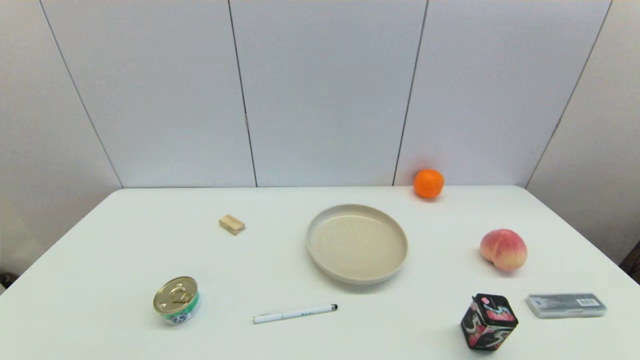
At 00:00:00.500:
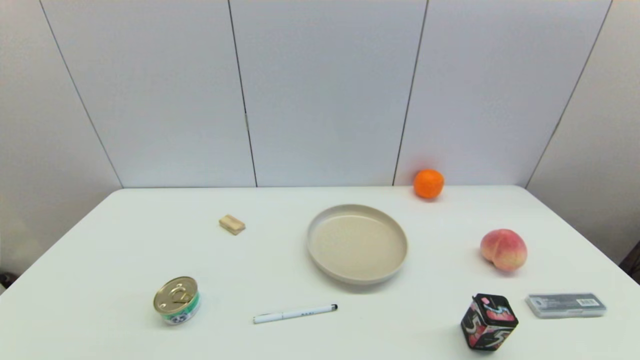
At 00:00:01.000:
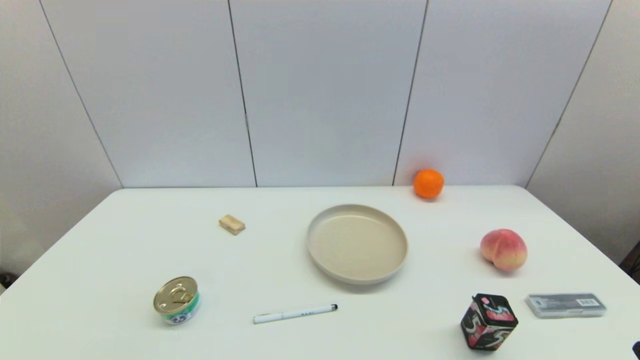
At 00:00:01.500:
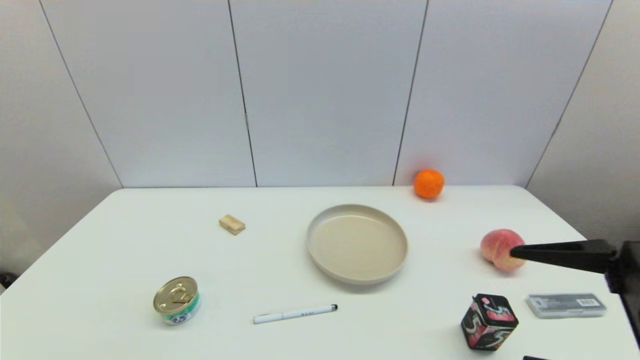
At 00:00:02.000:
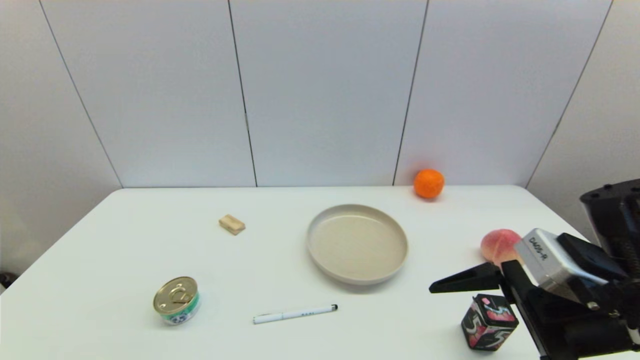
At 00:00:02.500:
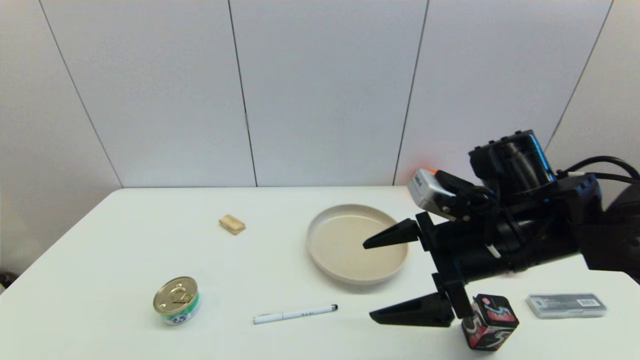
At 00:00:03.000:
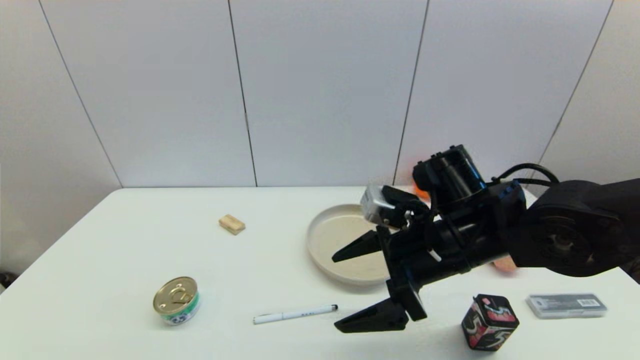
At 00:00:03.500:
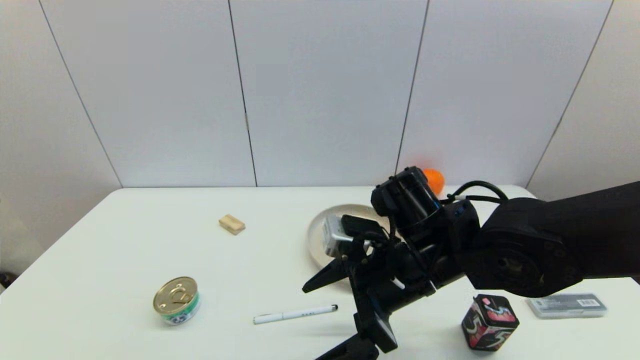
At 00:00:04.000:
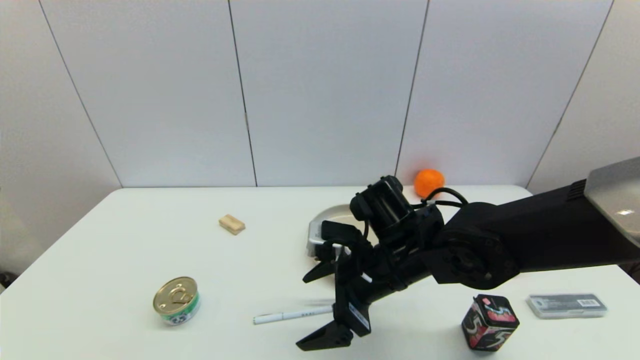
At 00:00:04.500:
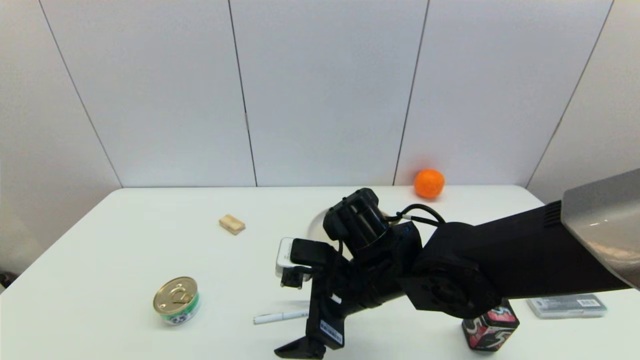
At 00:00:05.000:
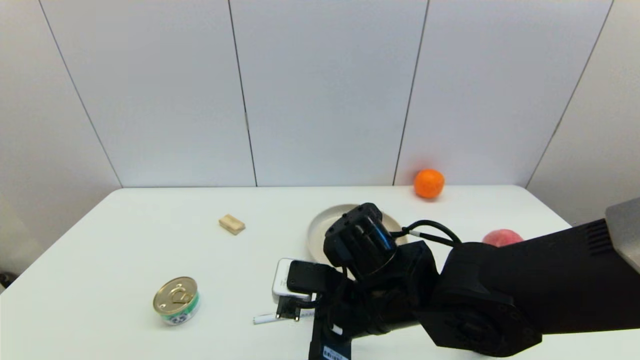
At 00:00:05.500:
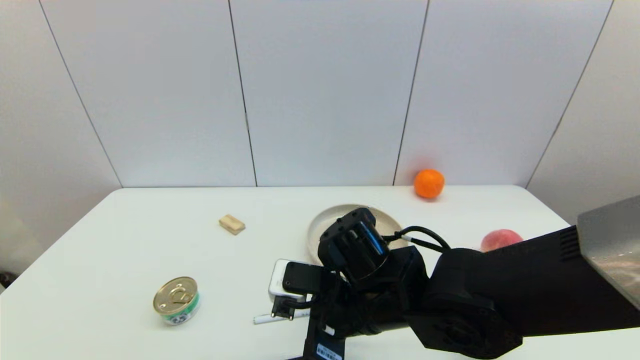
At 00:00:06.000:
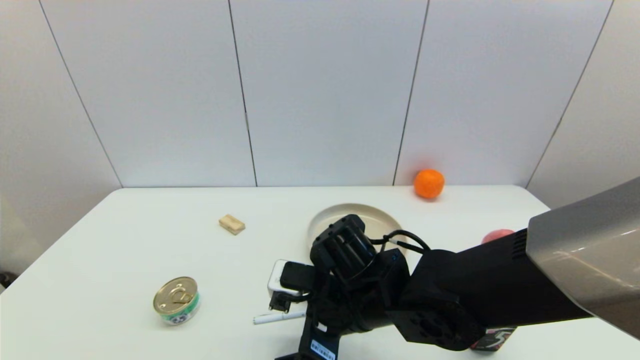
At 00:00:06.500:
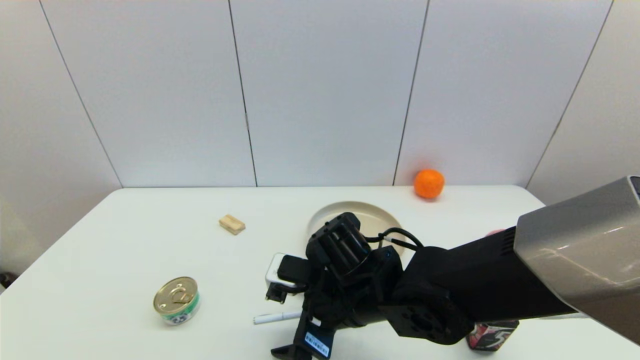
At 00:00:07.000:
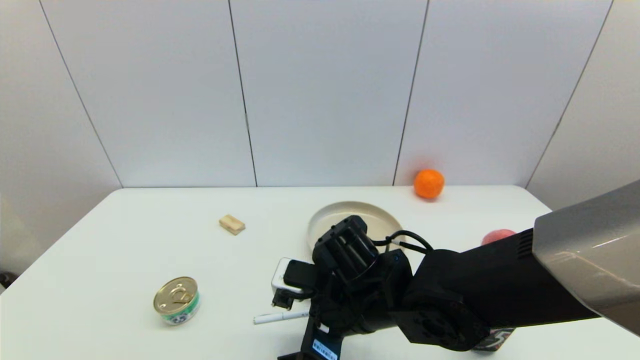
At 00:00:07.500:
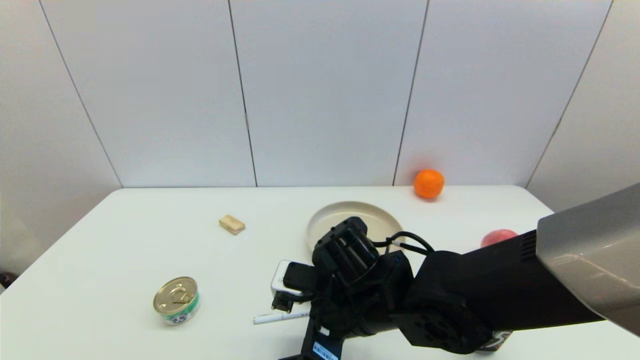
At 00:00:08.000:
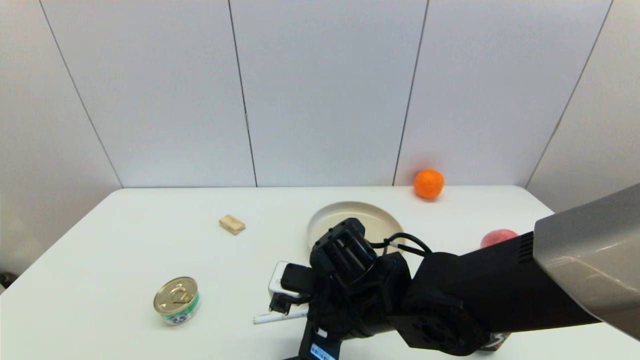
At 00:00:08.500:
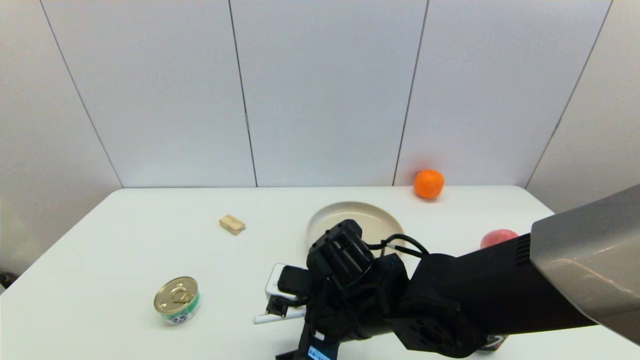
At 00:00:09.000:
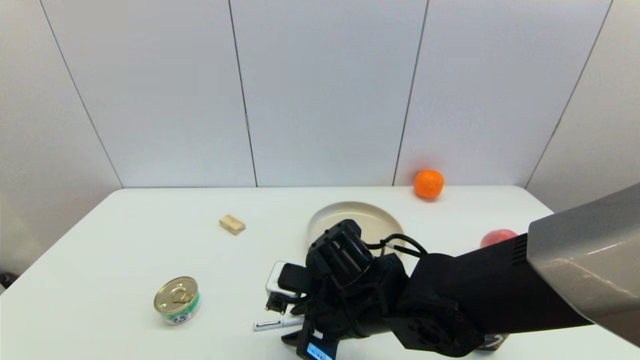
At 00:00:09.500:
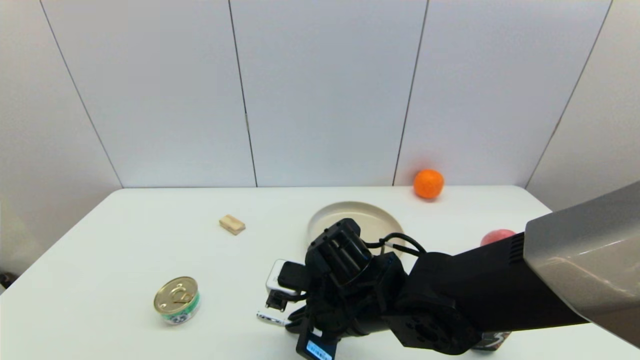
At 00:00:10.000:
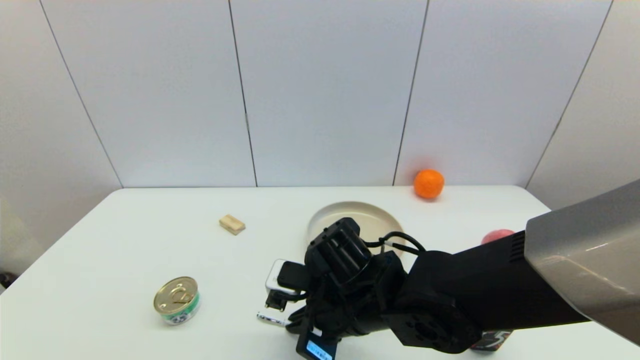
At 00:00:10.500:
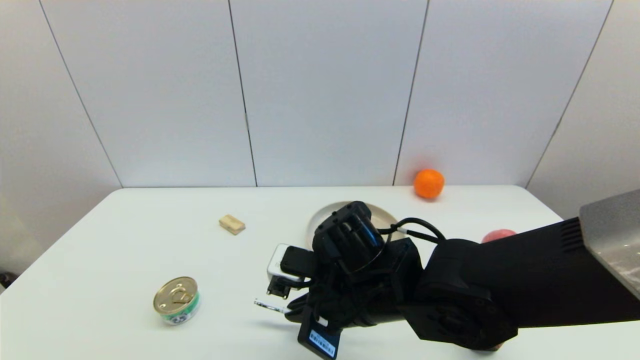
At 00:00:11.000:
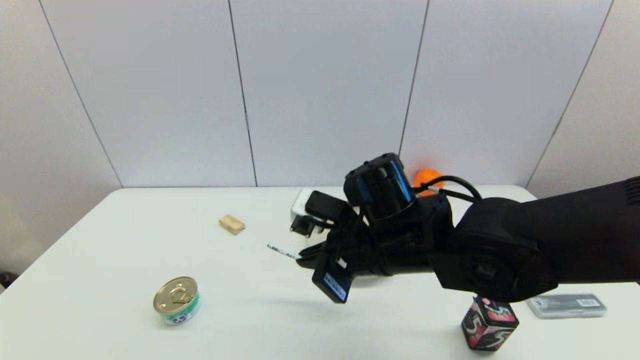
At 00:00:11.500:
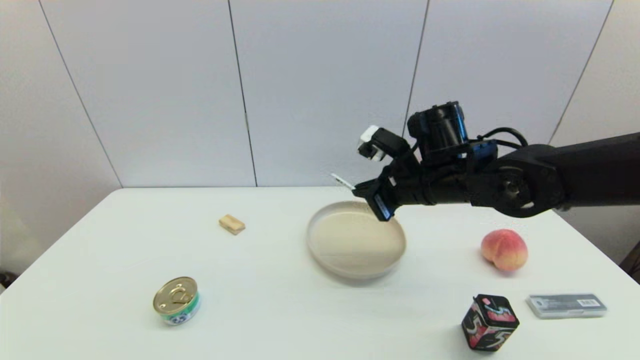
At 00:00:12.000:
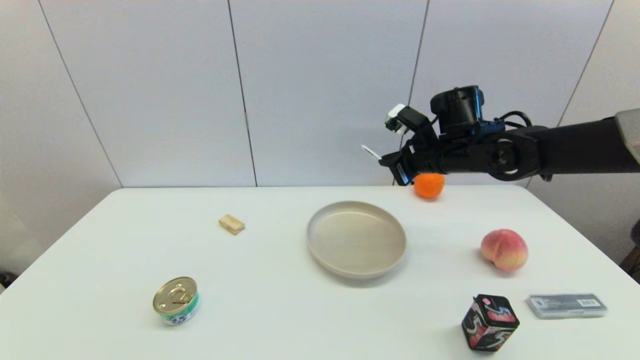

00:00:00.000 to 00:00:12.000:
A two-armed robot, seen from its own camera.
Task of the whole recording: put the pen in the designated position.
Step, 00:00:01.000 to 00:00:09.500: Grasp the sign pen with right gripper.
00:00:00.000 to 00:00:02.000: The right gripper goes approximately 25 cm forward, to the left and upward.
00:00:02.000 to 00:00:04.000: The right gripper goes roughly 20 cm to the left and forward.
00:00:04.000 to 00:00:06.000: The right gripper shifts by about 5 cm.
00:00:06.000 to 00:00:08.000: The grippers make only small movements.
00:00:08.000 to 00:00:10.000: The right gripper closes up.
00:00:10.000 to 00:00:12.000: The right gripper travels forward, to the right and upward by about 25 cm.

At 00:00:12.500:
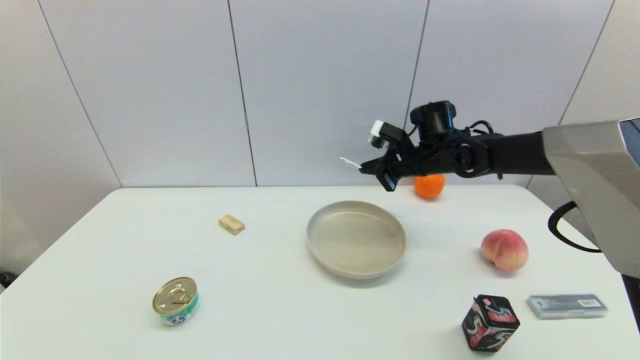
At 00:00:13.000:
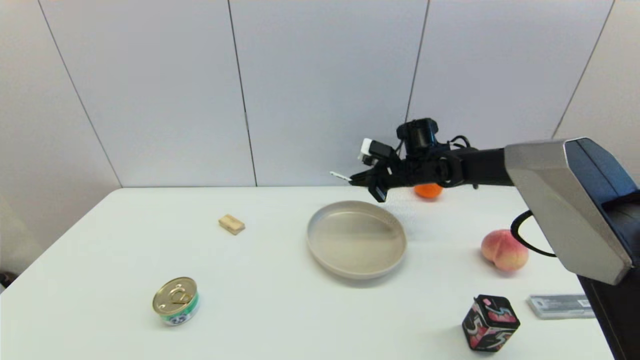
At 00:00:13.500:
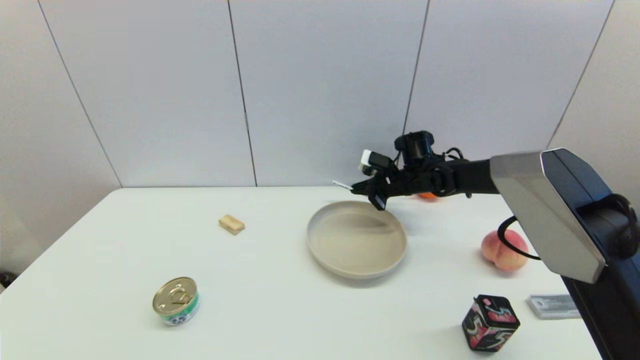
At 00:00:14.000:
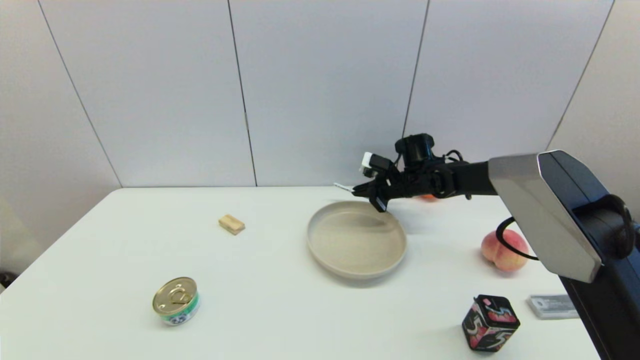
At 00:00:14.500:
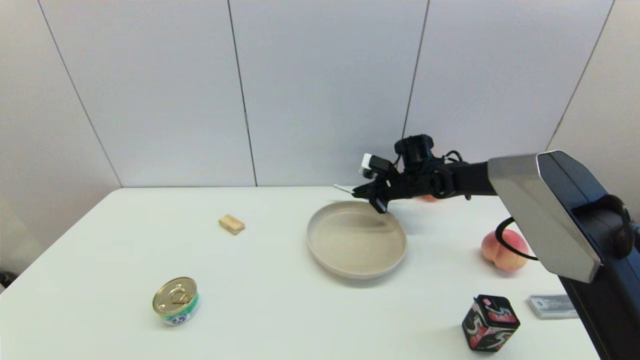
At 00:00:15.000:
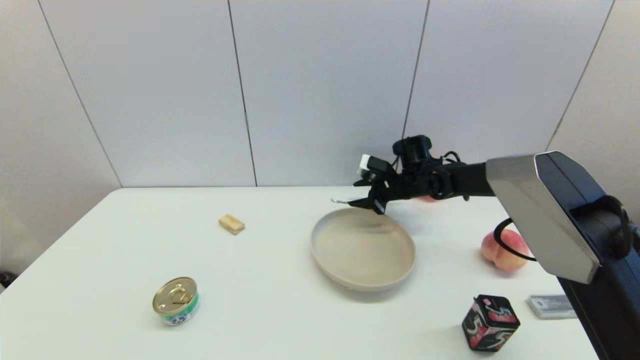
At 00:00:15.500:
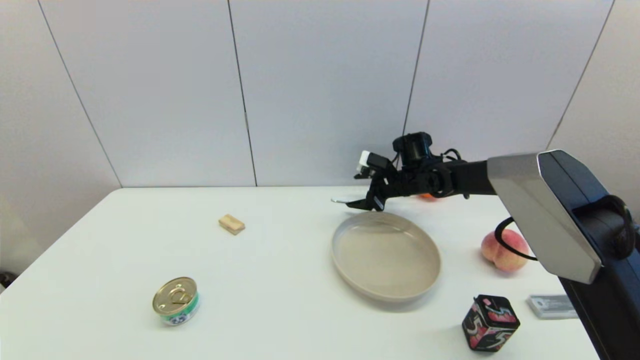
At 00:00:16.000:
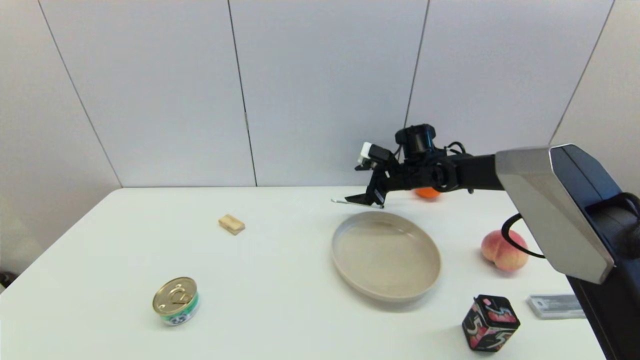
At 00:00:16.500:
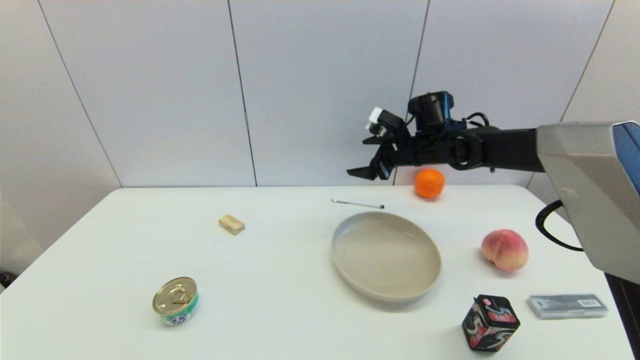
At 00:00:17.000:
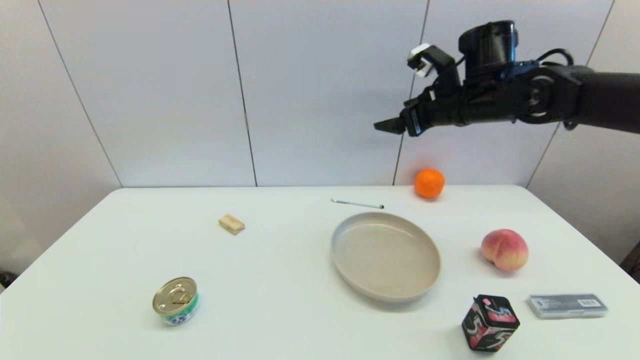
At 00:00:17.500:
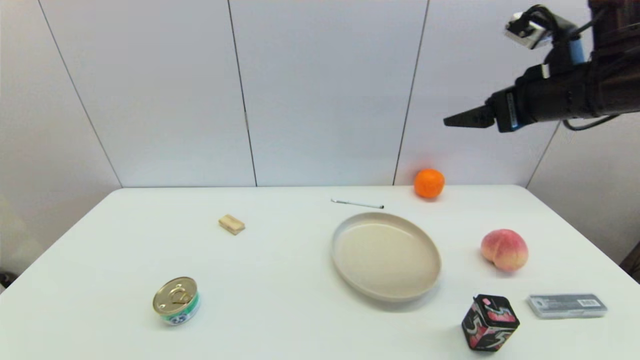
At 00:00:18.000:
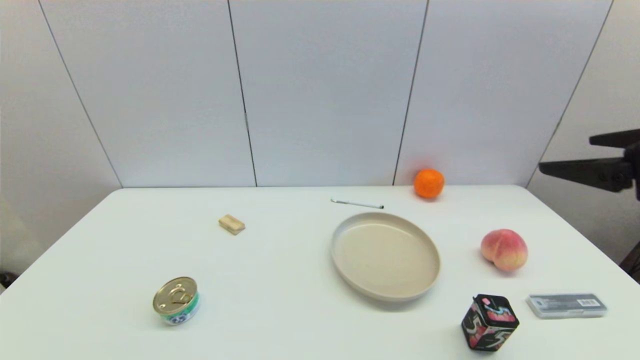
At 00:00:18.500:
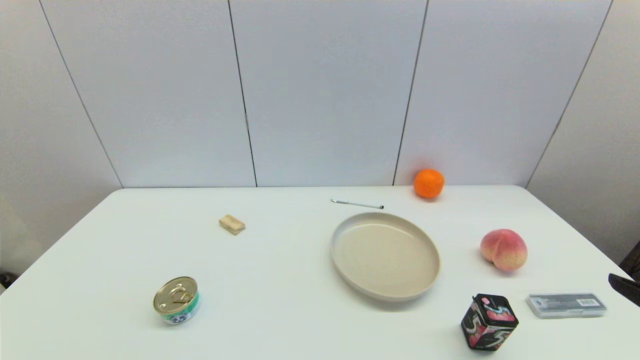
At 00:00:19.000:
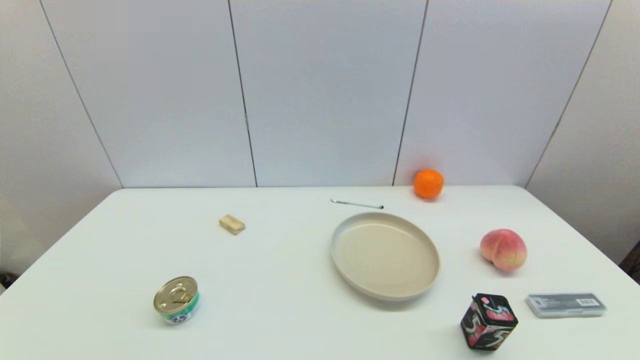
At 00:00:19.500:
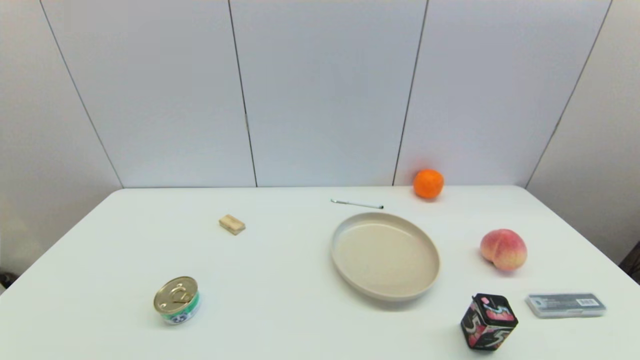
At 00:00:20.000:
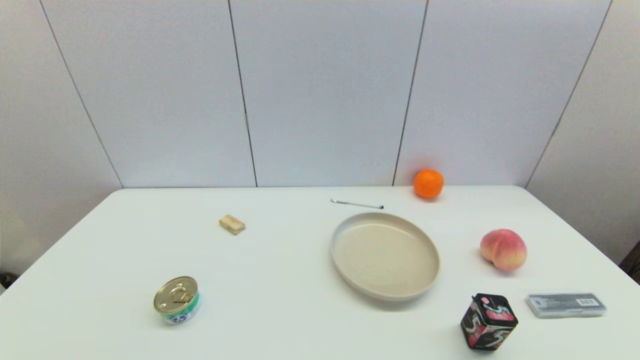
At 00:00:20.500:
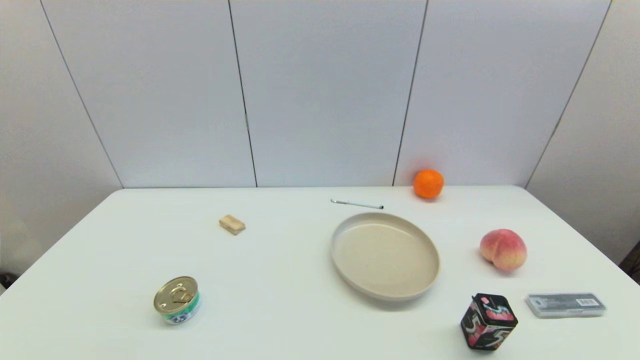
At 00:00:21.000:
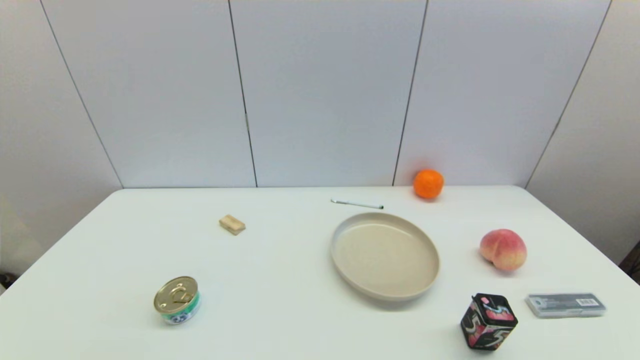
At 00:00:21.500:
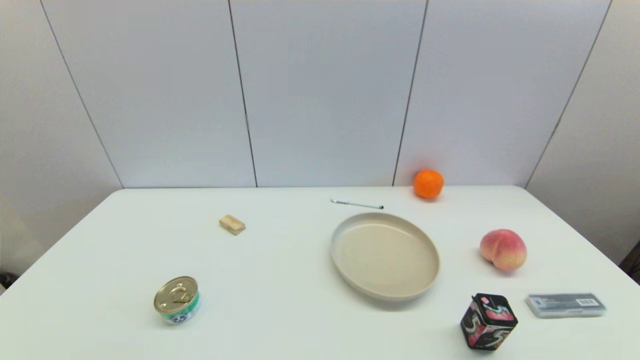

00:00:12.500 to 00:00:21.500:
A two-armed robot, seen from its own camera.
Task of the whole recording: put the pen in the designated position.
Step, 00:00:12.500 to 00:00:15.000: Place the sign pen on the table with right gripper.
00:00:12.500 to 00:00:14.500: The right gripper travels downward by approximately 10 cm.
00:00:14.500 to 00:00:17.000: The right gripper goes some 20 cm upward and backward, and opens.
00:00:17.000 to 00:00:19.500: The right gripper shifts about 50 cm backward and downward.
